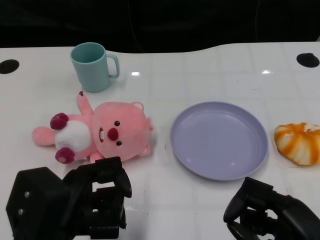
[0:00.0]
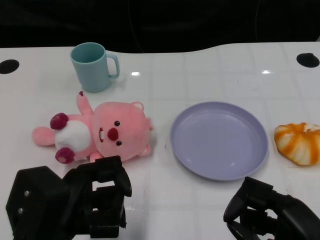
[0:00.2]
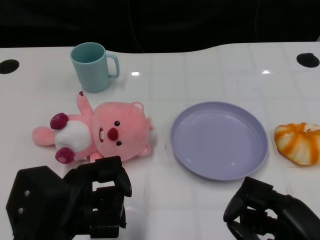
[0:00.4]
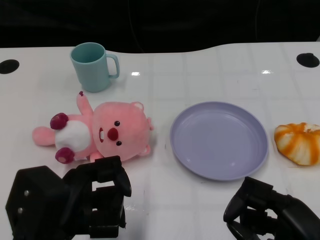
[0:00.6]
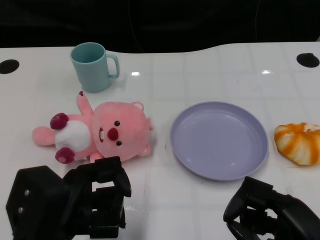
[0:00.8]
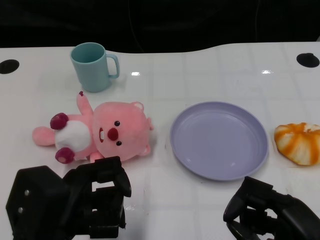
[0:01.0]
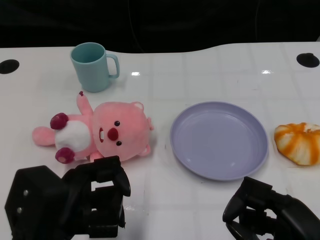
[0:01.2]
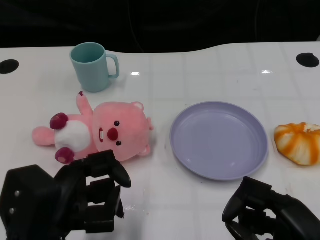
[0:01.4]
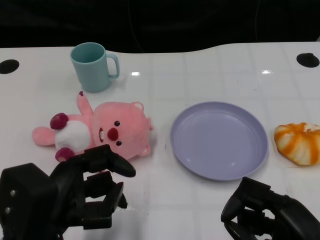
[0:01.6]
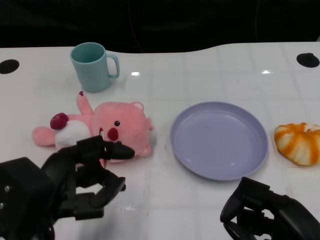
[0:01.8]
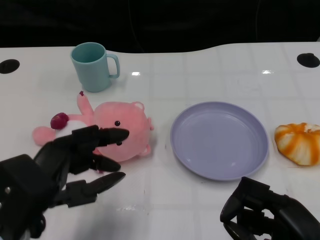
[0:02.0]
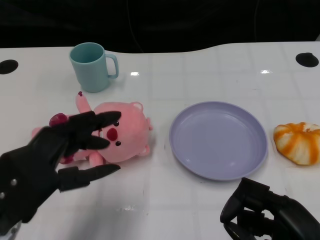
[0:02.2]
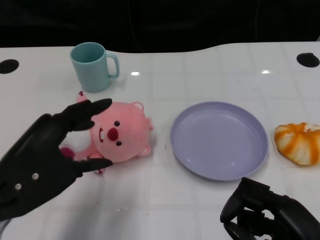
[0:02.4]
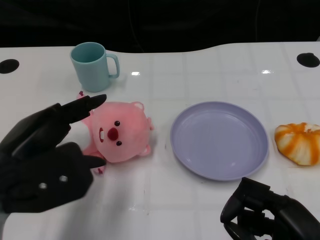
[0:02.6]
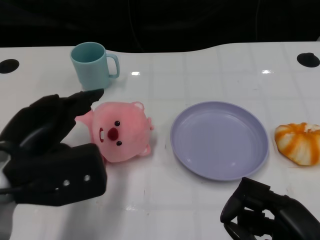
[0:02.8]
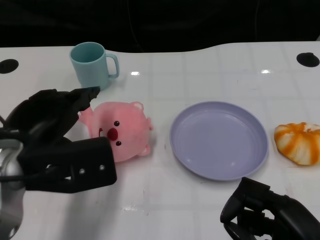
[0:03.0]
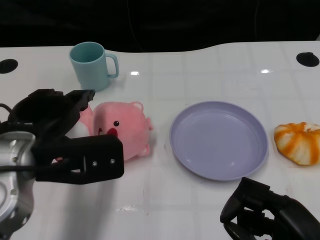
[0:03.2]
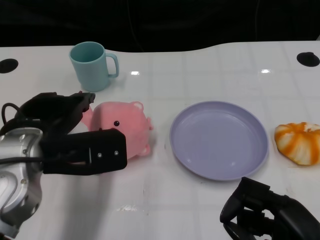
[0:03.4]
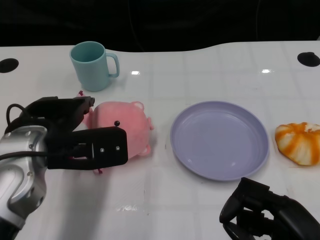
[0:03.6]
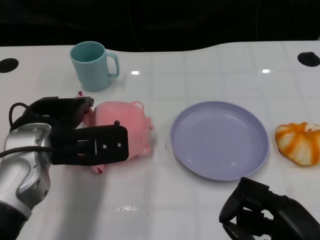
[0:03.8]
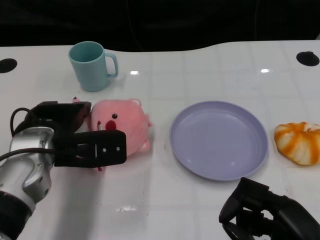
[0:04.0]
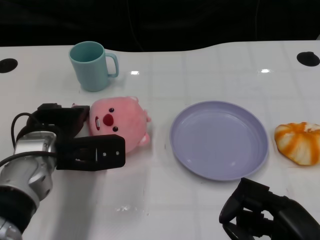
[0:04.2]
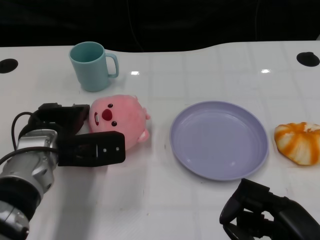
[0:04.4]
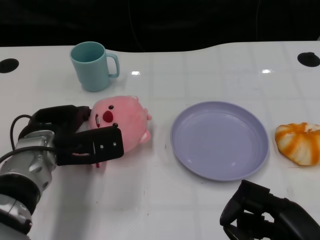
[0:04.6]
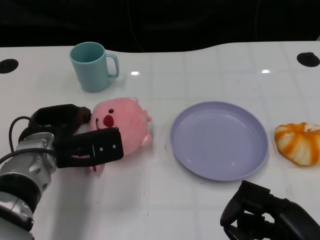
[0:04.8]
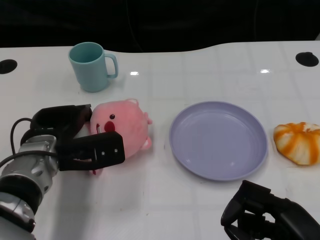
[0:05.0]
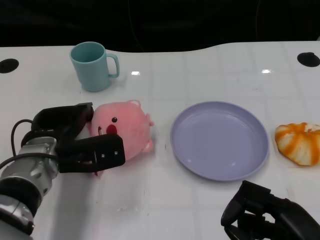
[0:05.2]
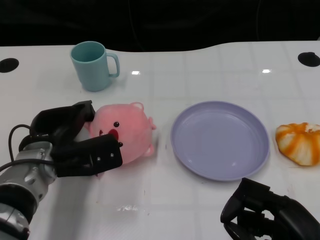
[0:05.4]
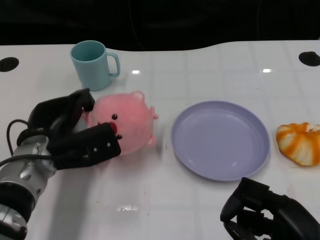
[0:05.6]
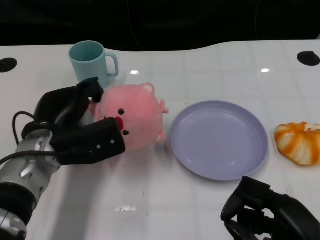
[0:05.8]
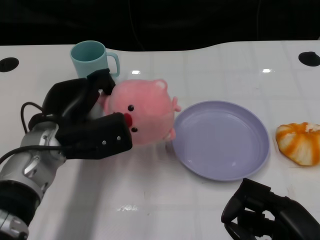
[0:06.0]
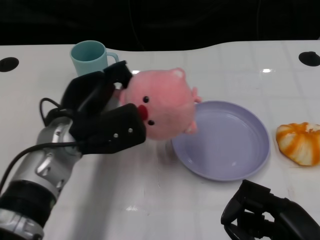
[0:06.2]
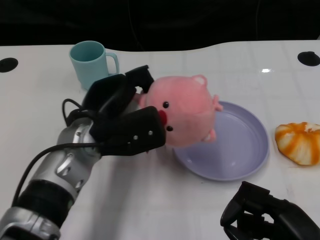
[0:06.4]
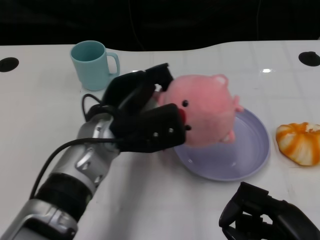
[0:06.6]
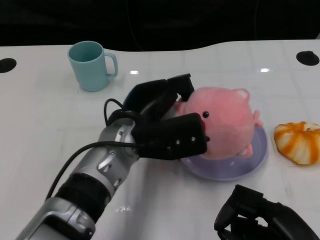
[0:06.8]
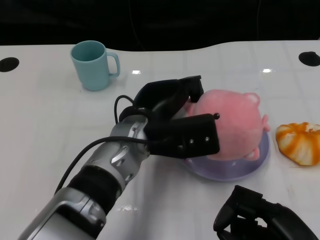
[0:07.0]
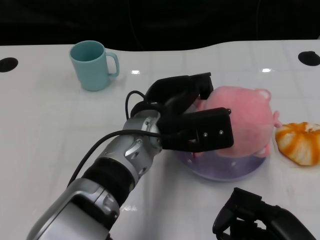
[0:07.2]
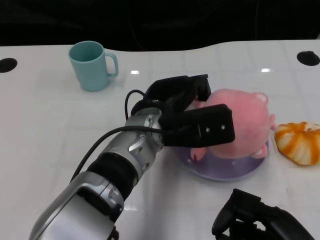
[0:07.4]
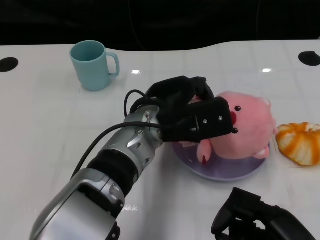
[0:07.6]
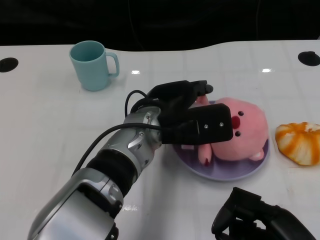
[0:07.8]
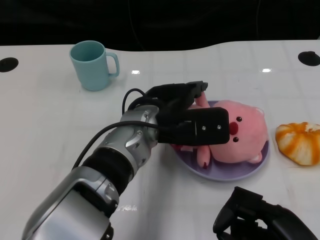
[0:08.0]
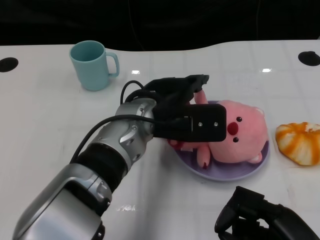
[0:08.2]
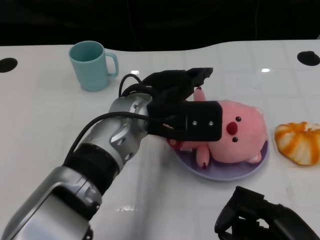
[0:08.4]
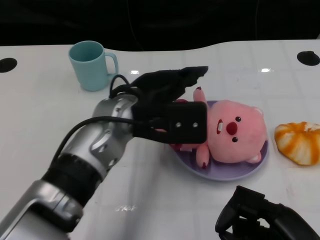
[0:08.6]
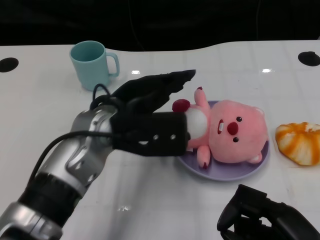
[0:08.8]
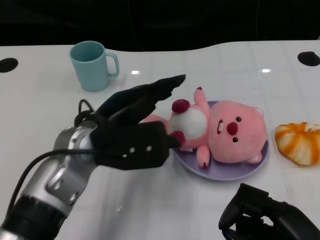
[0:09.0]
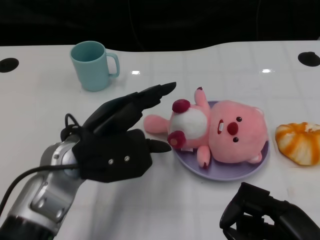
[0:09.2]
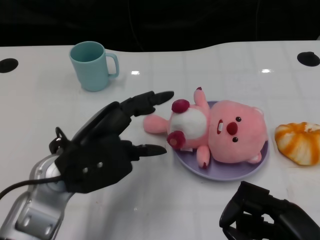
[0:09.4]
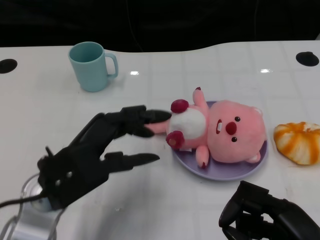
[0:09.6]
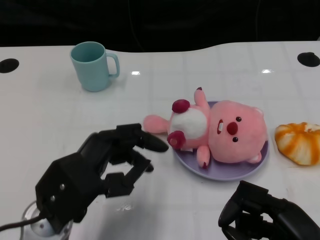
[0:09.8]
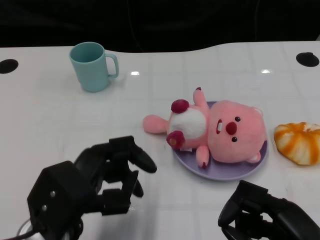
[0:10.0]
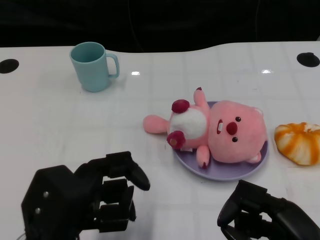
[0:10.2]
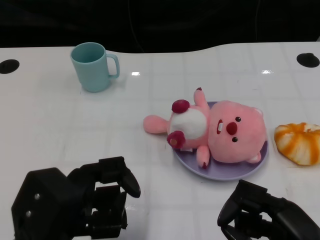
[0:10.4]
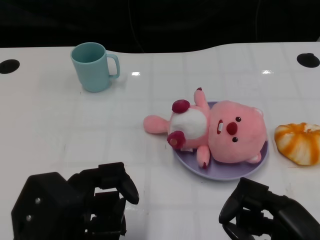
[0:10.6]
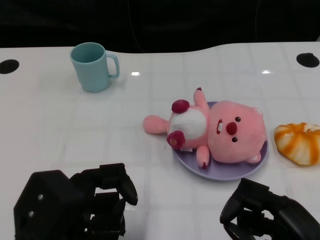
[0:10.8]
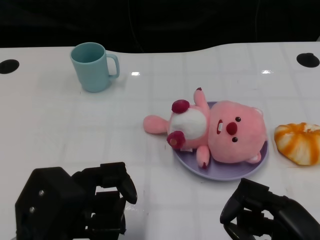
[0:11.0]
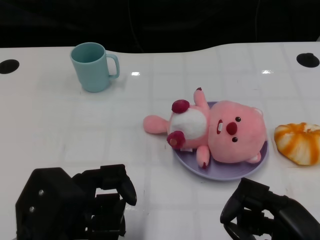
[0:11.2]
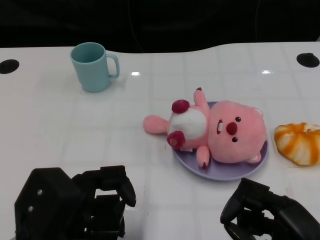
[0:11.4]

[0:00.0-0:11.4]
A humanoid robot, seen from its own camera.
Task of the whole recording: Pick up the doll on one side of the plate and place it into the plate.
Step, 0:01.2 to 0:05.6: Grasp the pink doll with the left gripper.
Step, 0:05.8 to 0:08.2: Place the pink doll into the plate with the left gripper.
0:01.4 to 0:02.8: The left hand moves upward and forward, about 10 cm.
0:02.8 to 0:04.2: The left hand moves forward and downward, approximately 10 cm.
0:05.6 to 0:07.2: The left hand moves to the right, roughly 15 cm.
0:08.6 to 0:10.0: The left hand shifts approximately 15 cm backward and to the left.
0:10.0 to 0:11.4: There are only small adjustments of the hands.

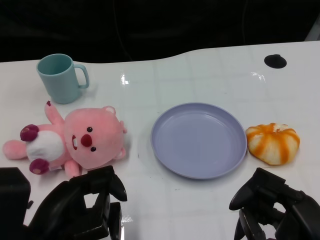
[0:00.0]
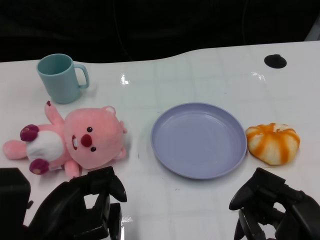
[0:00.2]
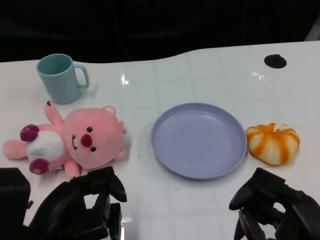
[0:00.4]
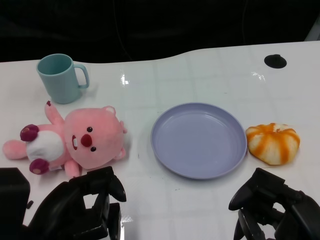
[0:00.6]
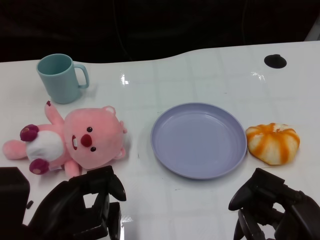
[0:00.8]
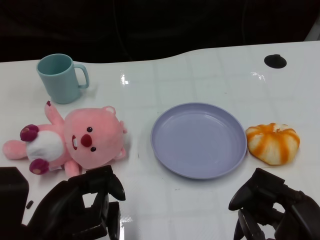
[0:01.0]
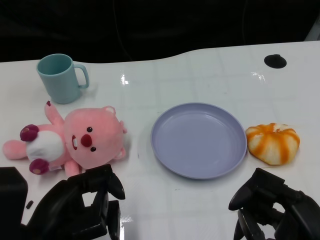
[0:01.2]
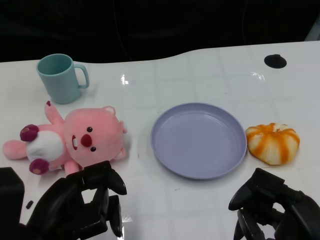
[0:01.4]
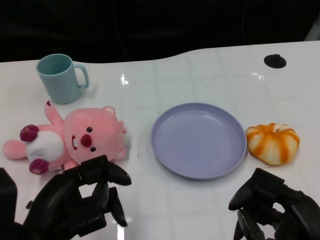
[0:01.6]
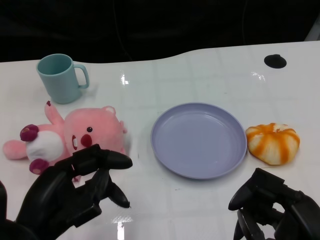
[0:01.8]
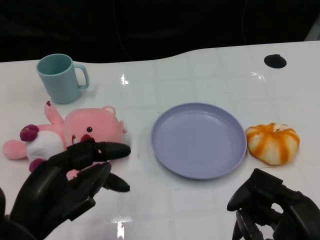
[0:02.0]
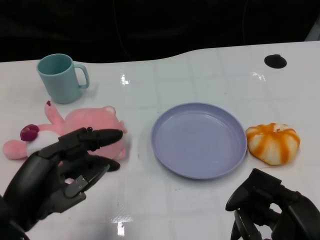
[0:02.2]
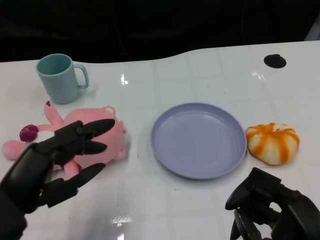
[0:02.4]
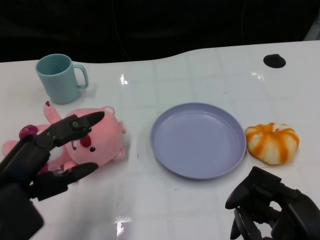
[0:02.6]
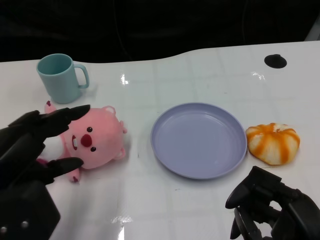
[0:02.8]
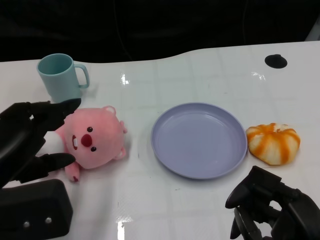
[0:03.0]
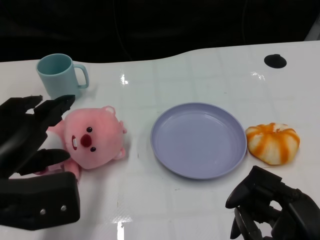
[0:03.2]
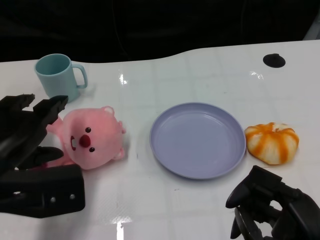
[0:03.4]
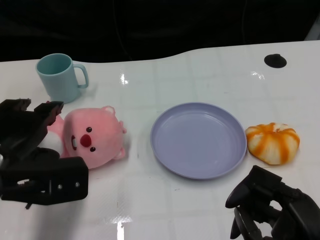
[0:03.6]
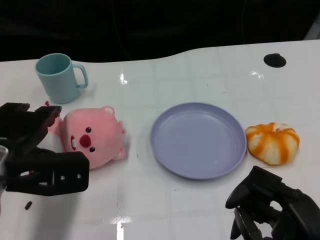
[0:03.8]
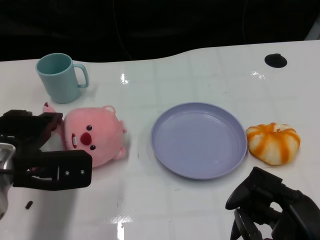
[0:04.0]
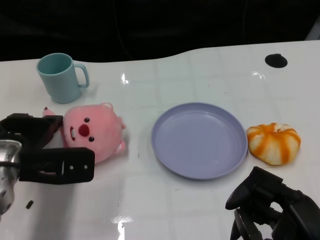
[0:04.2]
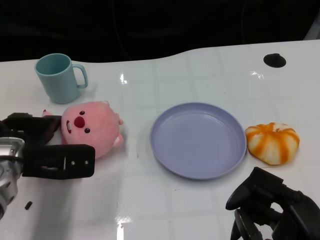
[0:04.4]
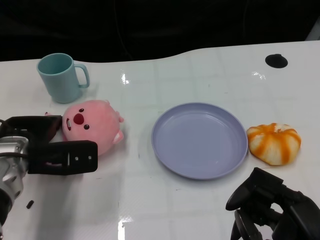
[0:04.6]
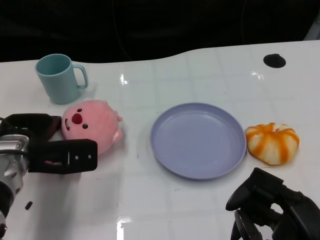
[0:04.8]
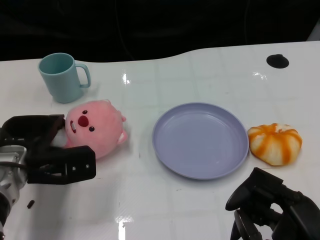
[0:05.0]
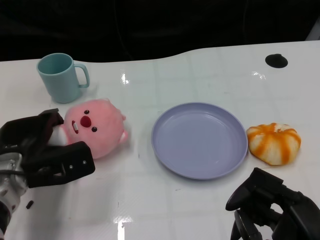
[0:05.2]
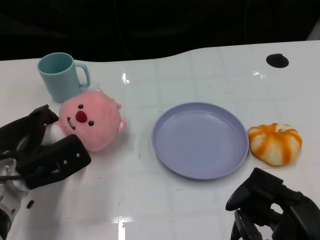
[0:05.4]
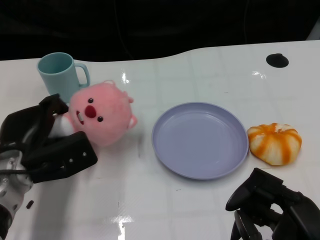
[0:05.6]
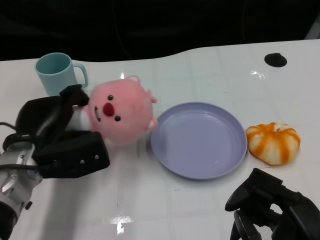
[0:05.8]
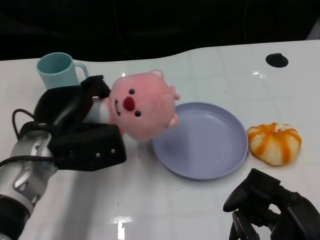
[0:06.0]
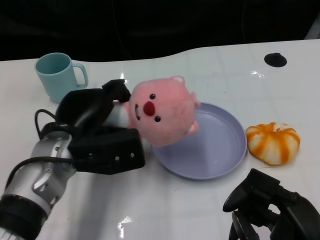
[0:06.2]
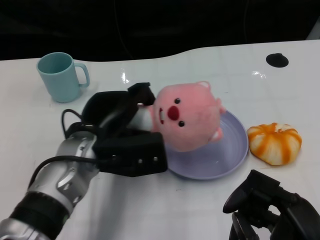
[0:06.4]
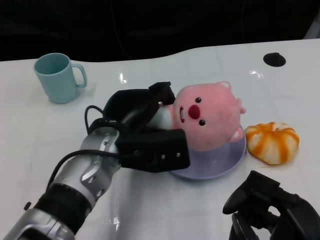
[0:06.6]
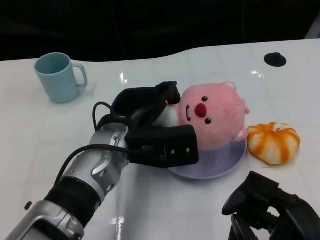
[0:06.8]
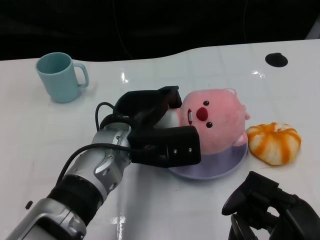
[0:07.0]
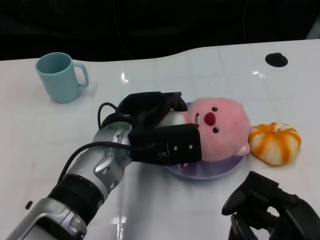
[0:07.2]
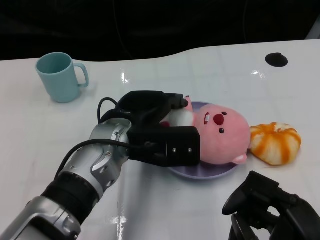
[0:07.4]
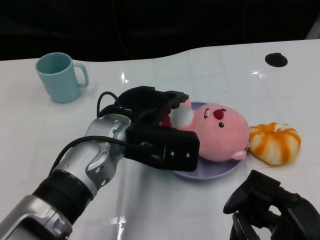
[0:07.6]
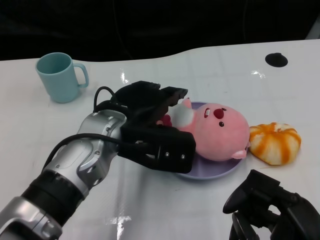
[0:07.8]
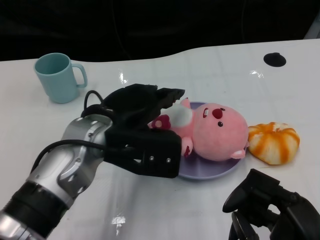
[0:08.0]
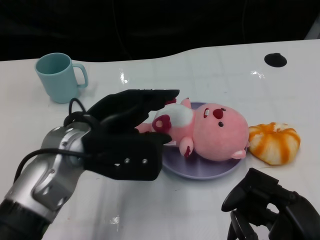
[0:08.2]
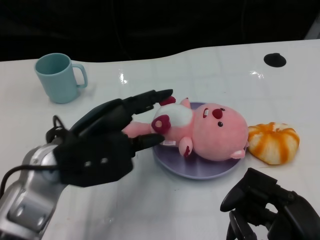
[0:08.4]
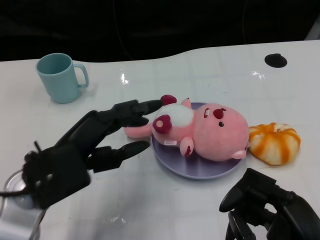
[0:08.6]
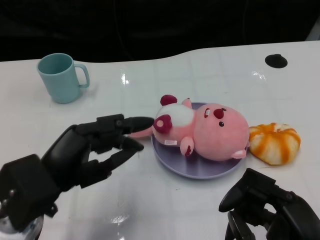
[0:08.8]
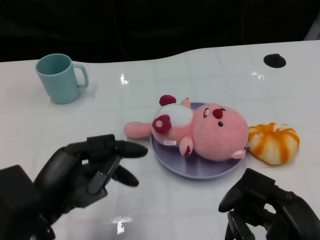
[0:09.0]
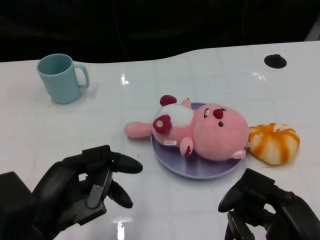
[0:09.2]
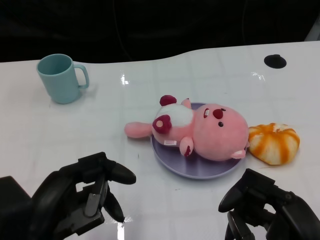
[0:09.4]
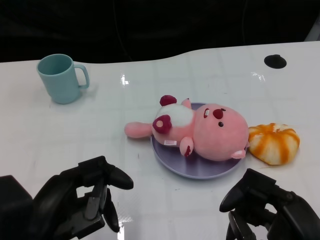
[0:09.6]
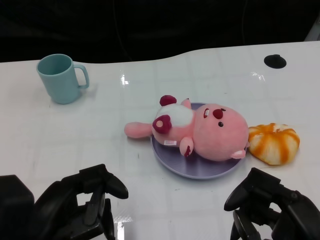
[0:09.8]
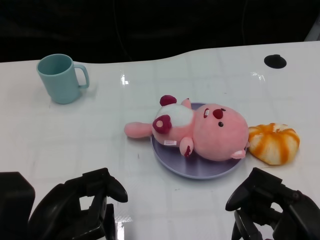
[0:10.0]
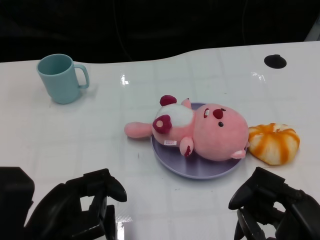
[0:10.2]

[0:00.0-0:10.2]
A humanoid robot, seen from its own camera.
Task of the whole recording: Pick up the doll on one side of the plate and place it into the plate.
Step, 0:01.2 to 0:05.4: Grasp the pink doll with the left gripper.
Step, 0:05.6 to 0:08.0: Place the pink doll into the plate with the left gripper.
0:01.4 to 0:03.0: The left hand moves upward, about 5 cm.
0:03.0 to 0:04.4: The left hand heads forward and downward, covering roughly 15 cm.
0:05.8 to 0:07.2: The left hand shifts about 15 cm to the right.
0:07.2 to 0:08.8: The left hand travels to the left and backward by roughly 15 cm.
0:08.8 to 0:10.2: The left hand heads backward, covering roughly 5 cm.

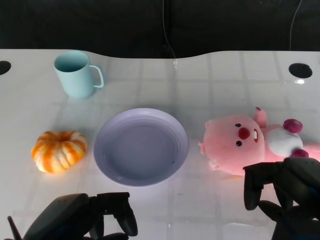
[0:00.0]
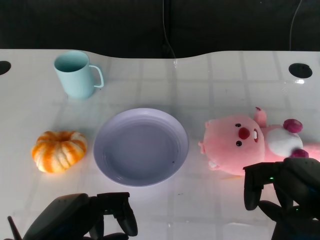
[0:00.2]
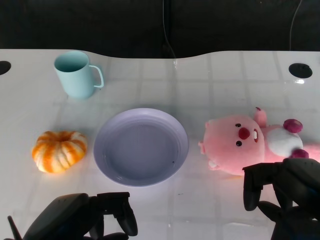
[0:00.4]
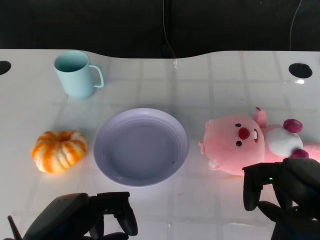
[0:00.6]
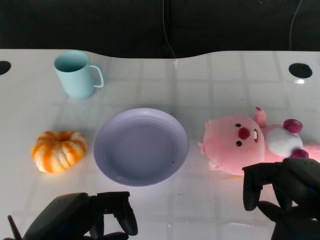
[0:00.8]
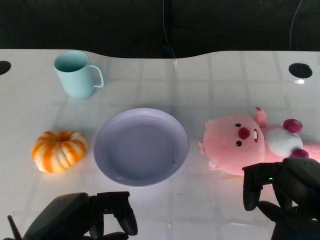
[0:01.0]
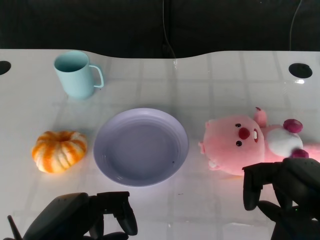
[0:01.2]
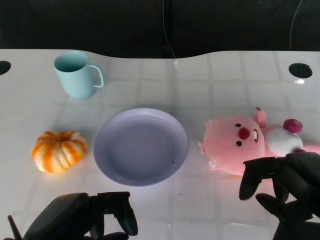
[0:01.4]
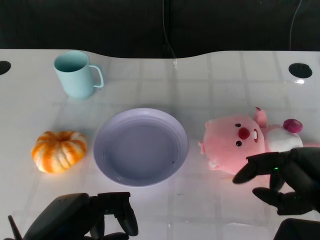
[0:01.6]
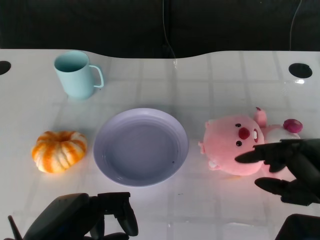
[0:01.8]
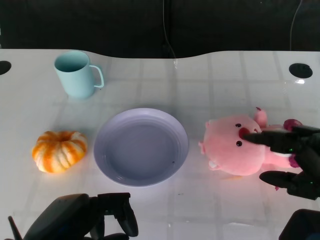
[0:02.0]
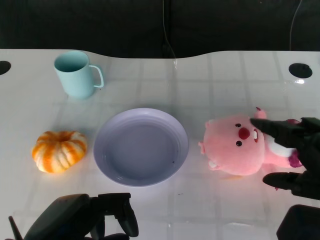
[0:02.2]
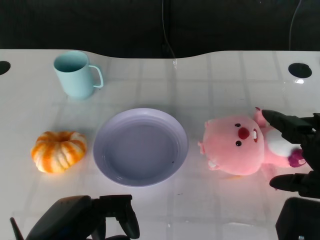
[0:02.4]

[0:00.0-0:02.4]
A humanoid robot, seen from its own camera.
Task of the whole recording: Pick up the doll on the other side of the plate and place it into the plate.
0:01.2 to 0:02.4: There are only small adjustments of the hands.
